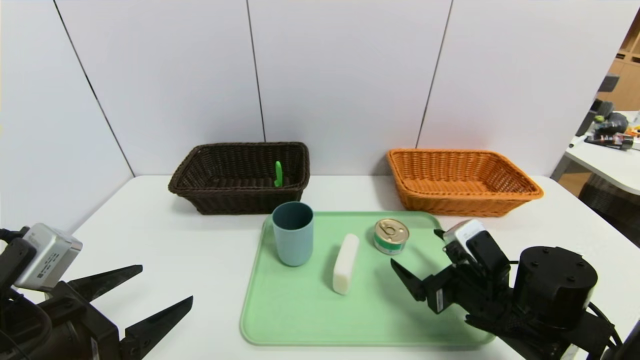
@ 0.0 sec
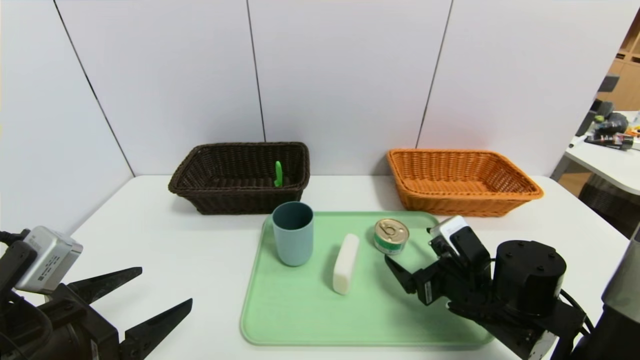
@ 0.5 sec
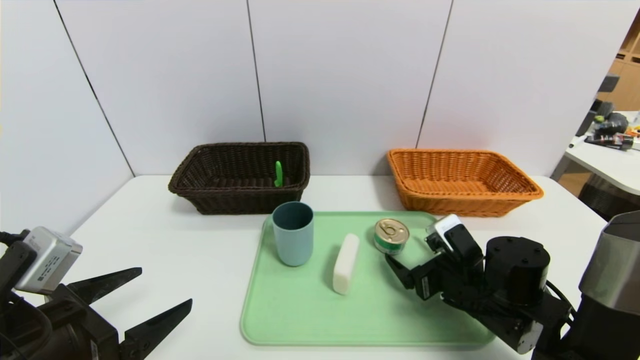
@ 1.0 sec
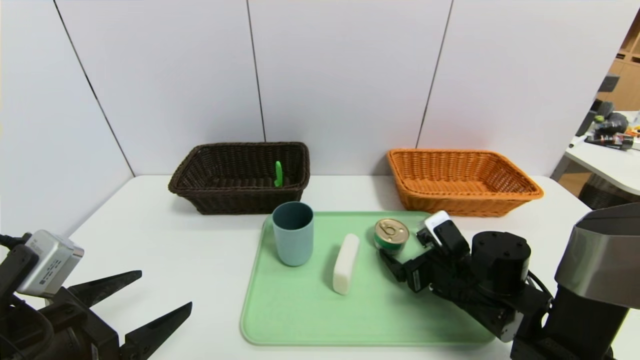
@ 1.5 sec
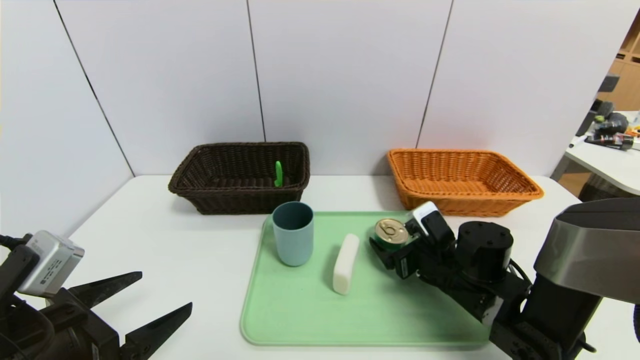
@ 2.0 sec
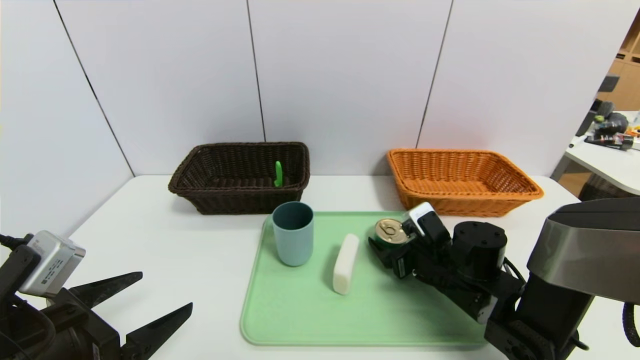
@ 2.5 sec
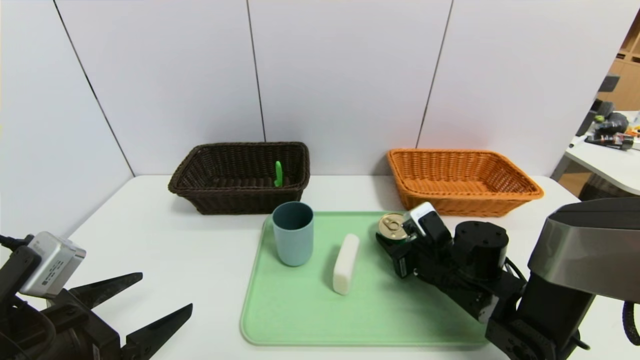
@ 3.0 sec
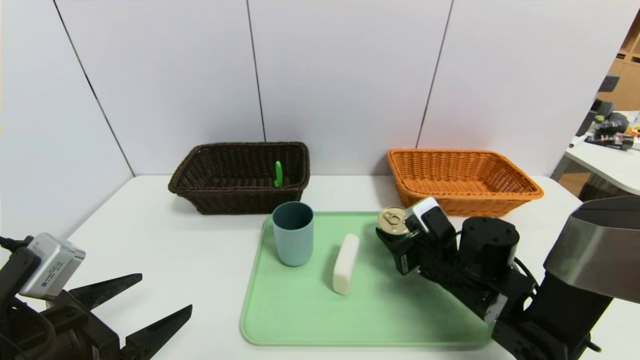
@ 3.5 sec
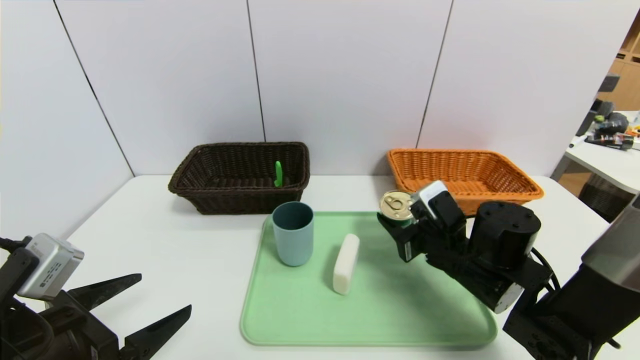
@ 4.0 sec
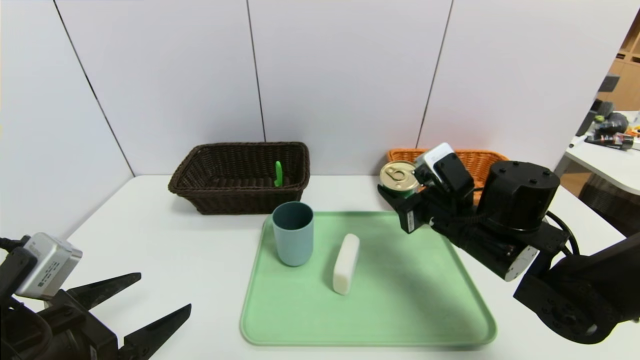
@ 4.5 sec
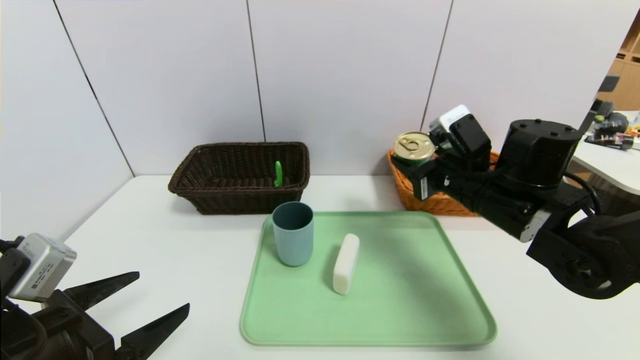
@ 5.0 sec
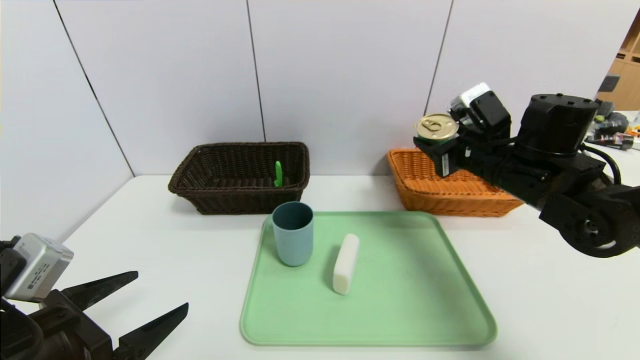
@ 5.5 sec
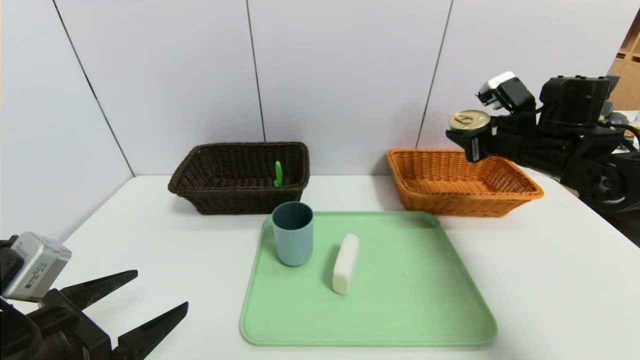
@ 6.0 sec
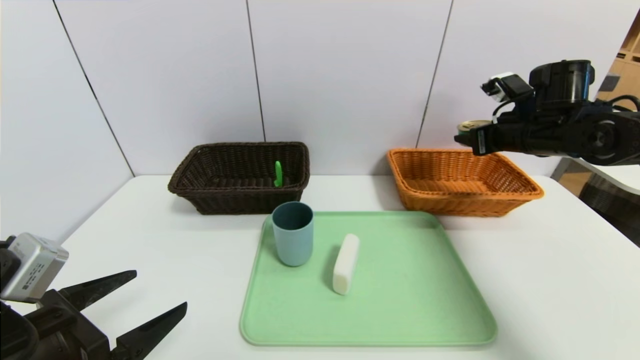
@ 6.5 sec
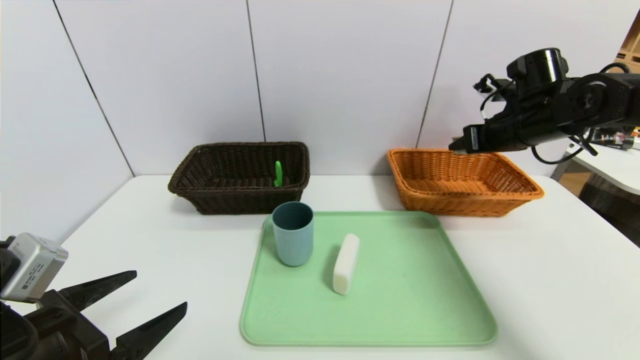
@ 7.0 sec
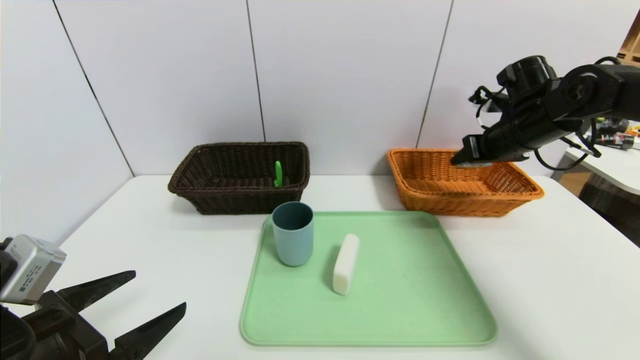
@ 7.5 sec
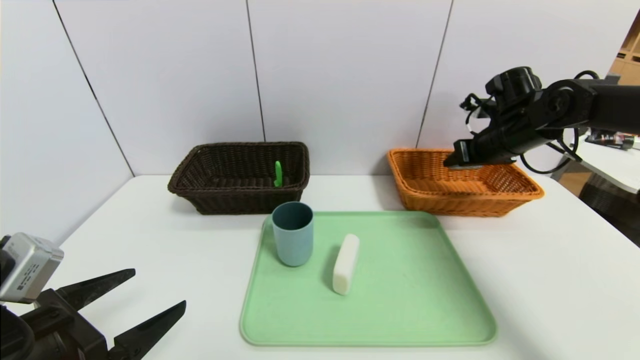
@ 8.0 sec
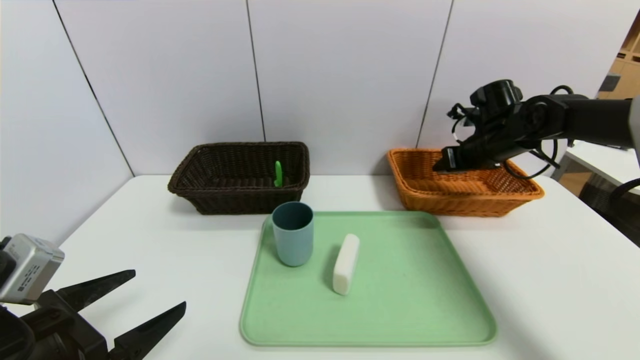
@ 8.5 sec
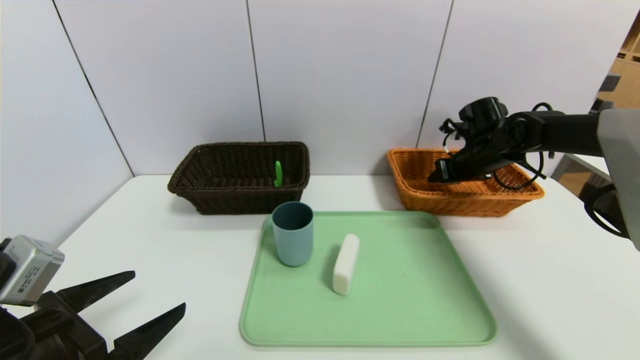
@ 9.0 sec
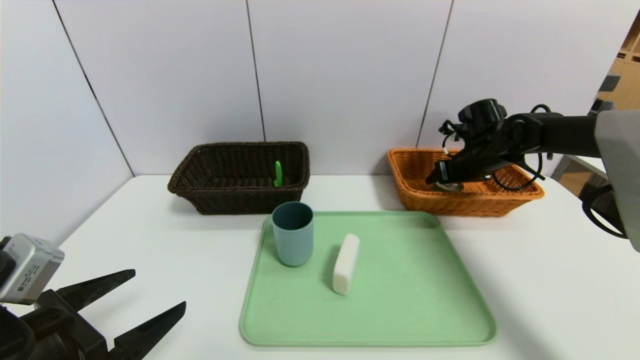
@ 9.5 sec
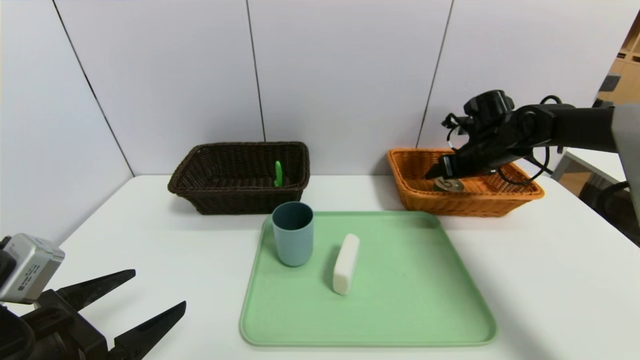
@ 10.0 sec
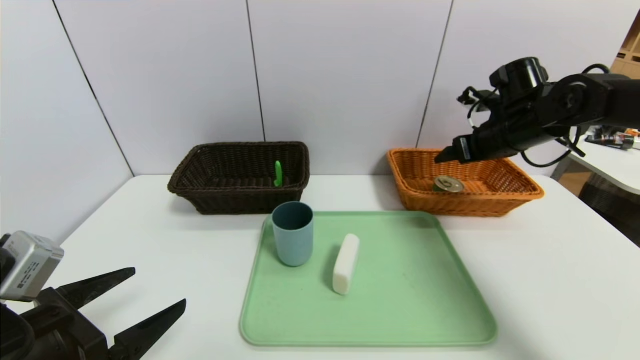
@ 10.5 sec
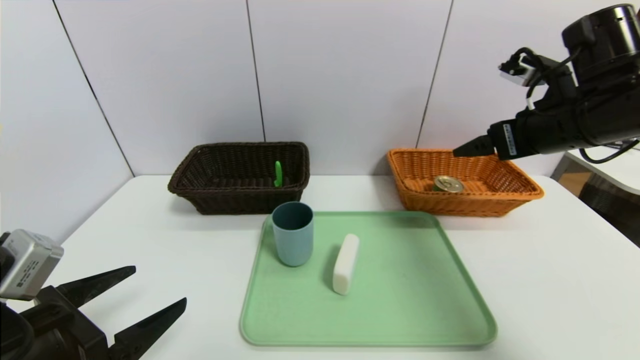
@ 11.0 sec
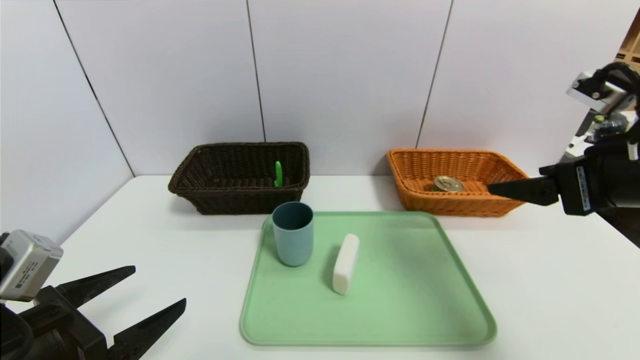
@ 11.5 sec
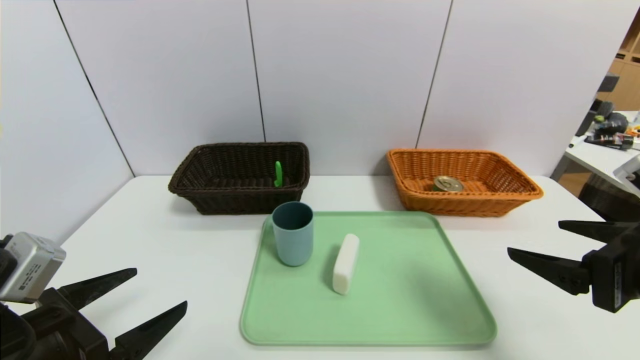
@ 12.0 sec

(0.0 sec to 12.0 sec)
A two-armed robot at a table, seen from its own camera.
Task of the whole recording: place the food in the right basket with the right gripper, and place the non food items in the left basket with the left gripper.
Step, 0.0 sec - 11.0 sec: Grasp the can and put it in the right basket.
0.0 sec - 2.0 sec: The right gripper heads forward, covering roughly 5 cm.
2.0 sec - 4.0 sec: The right gripper closes up.
4.0 sec - 6.0 sec: The right gripper heads upward, to the right and forward, covering approximately 20 cm.
6.0 sec - 8.0 sec: The right gripper heads forward, covering approximately 5 cm.
10.0 sec - 12.0 sec: The right gripper travels backward by roughly 30 cm.

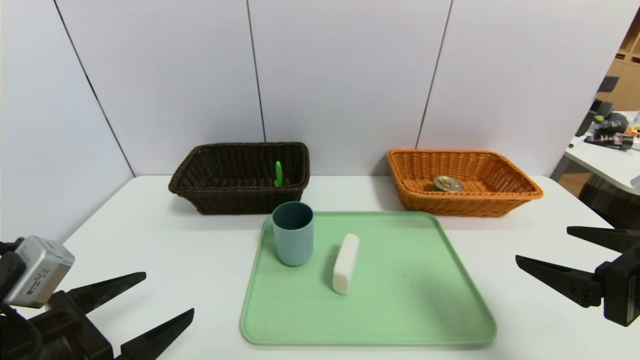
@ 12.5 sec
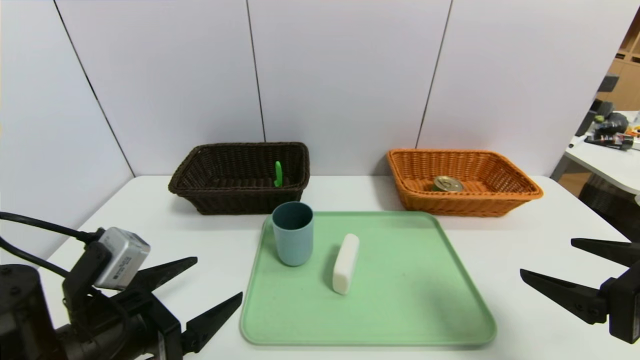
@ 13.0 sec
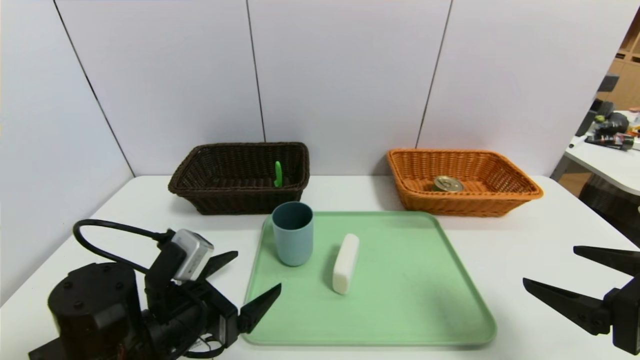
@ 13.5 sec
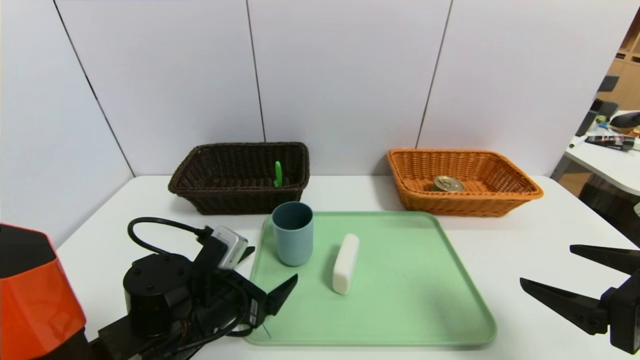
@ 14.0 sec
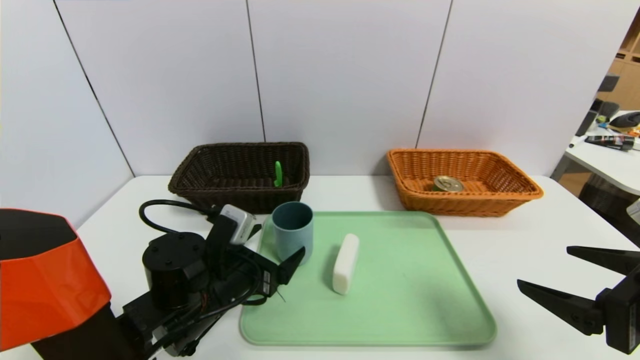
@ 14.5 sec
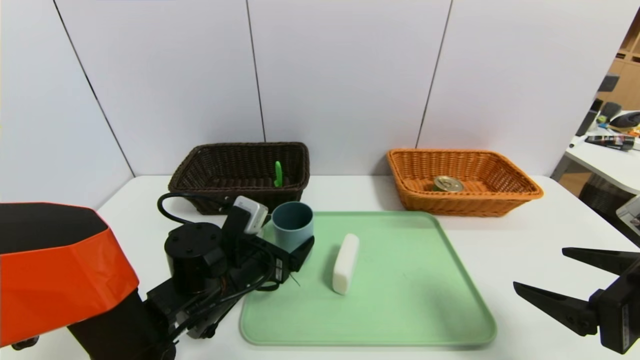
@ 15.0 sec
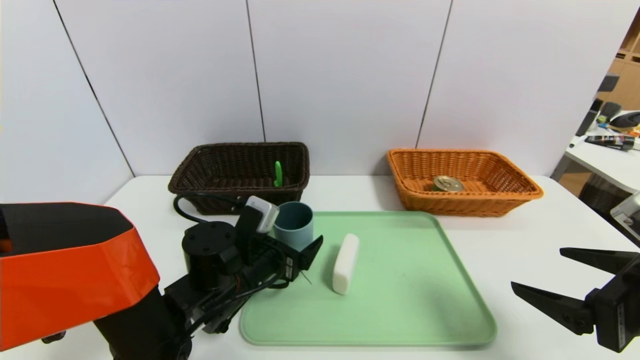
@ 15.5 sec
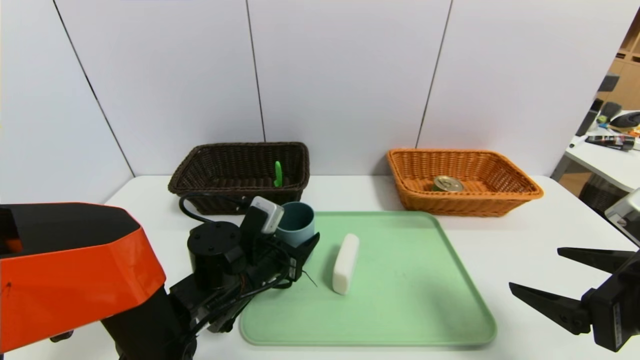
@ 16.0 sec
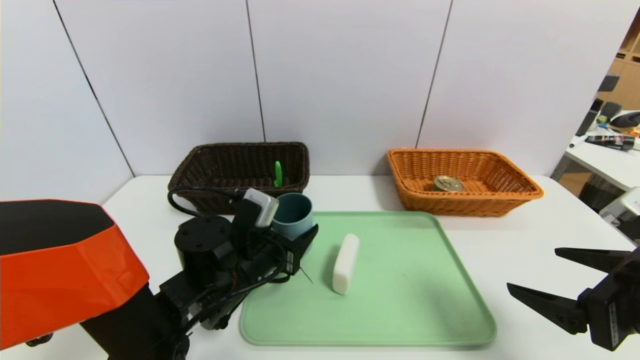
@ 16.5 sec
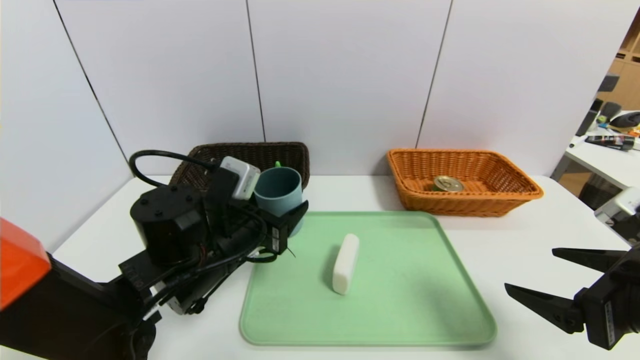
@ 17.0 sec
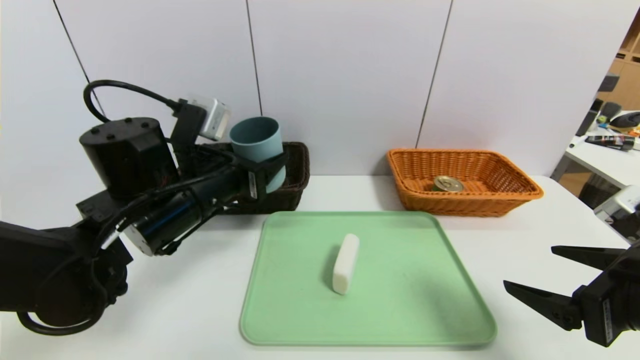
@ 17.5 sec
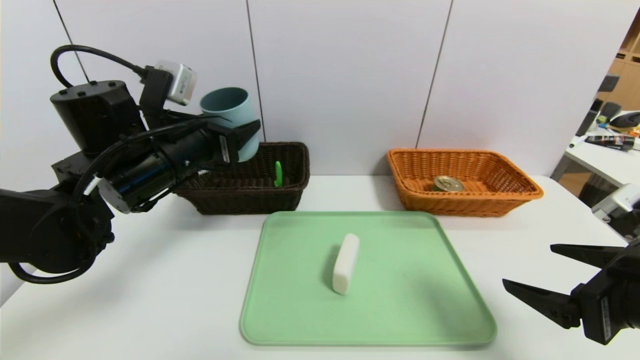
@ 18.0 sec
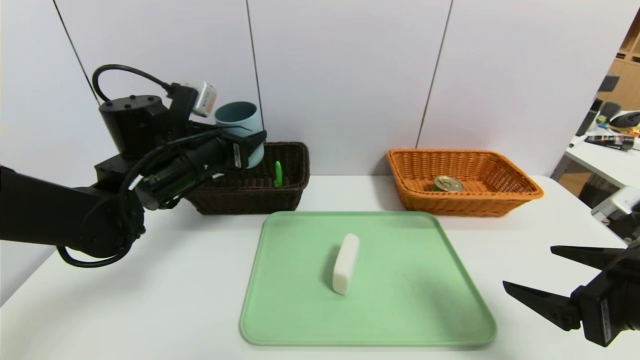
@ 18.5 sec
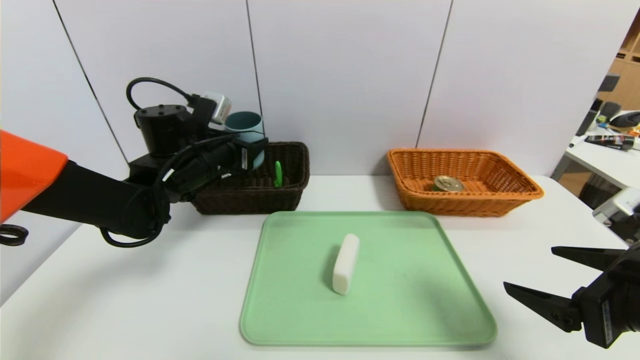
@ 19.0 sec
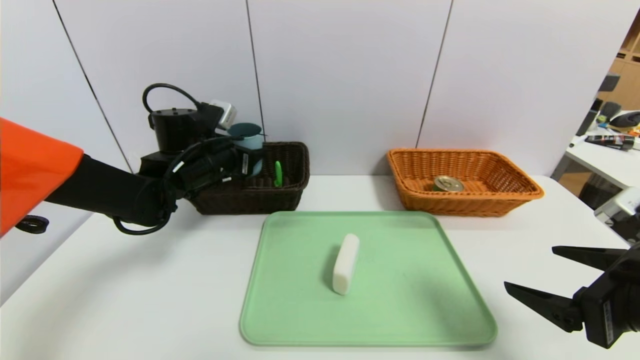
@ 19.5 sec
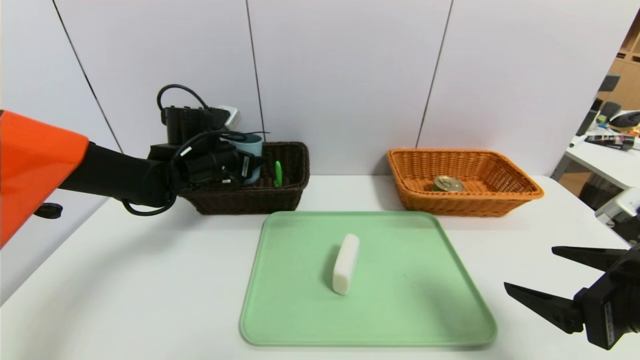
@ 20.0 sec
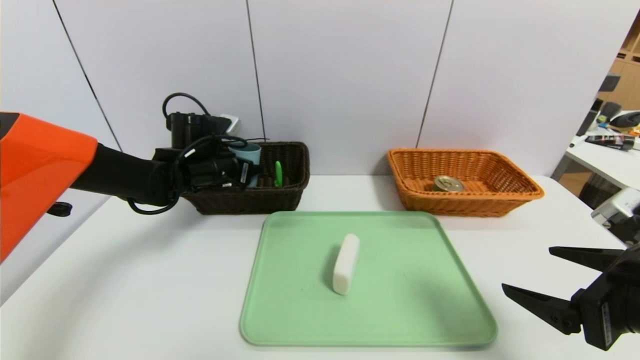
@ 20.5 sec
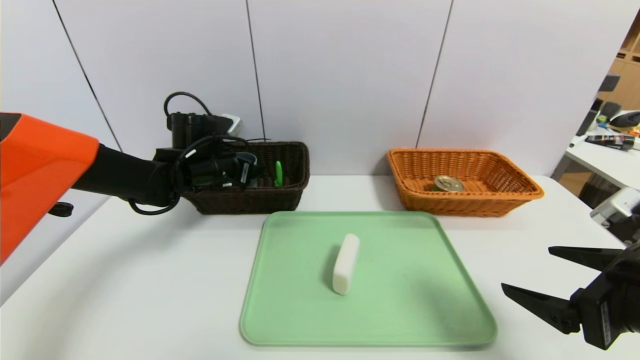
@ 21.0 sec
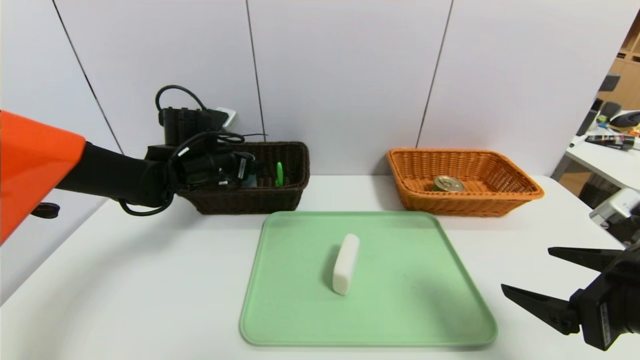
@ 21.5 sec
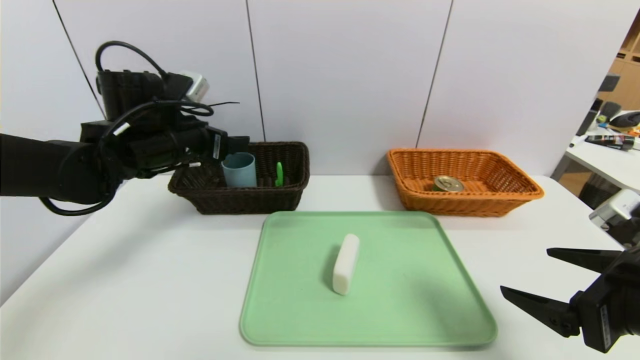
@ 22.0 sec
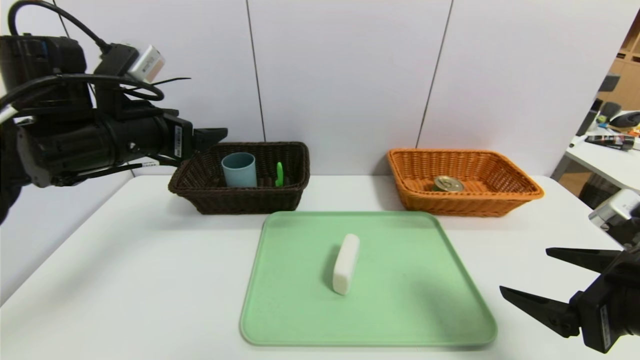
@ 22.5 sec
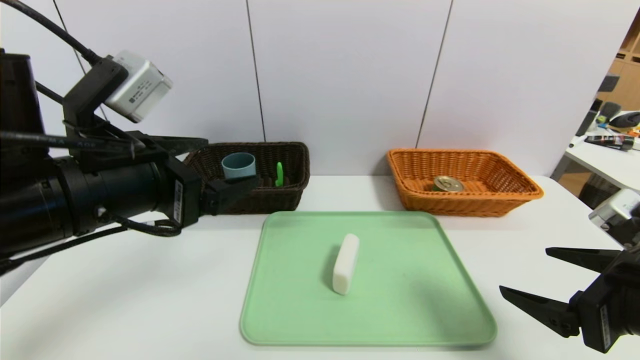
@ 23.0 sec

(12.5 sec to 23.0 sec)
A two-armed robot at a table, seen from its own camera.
Task of the whole recording: place the food in the right basket with the right gripper, and place the non food items in the left basket with the left gripper.
Step, 12.5 sec - 22.5 sec: Grasp the blue cup and put it in the left basket.
12.5 sec - 14.5 sec: The left gripper shifts some 20 cm forward, to the right and downward.
14.5 sec - 16.5 sec: The left gripper closes.
16.5 sec - 19.0 sec: The left gripper shifts approximately 15 cm forward, upward and to the left.
19.0 sec - 21.0 sec: The left gripper shifts by about 5 cm.
21.0 sec - 23.0 sec: The left gripper shifts approximately 25 cm backward and upward.
